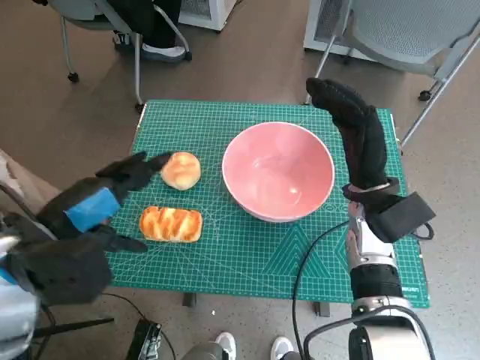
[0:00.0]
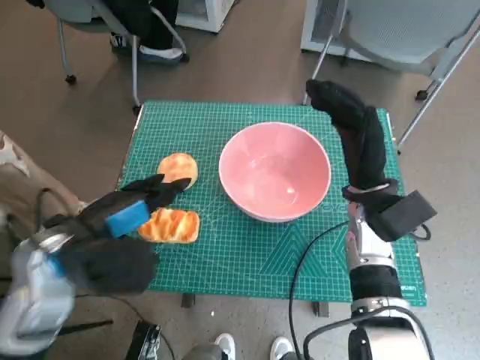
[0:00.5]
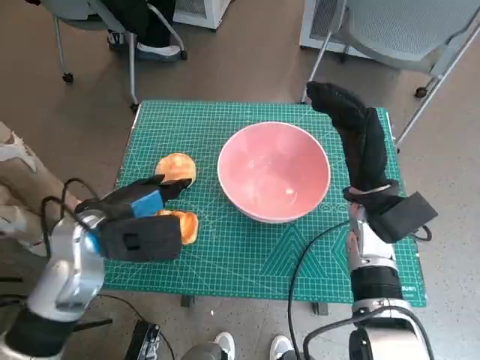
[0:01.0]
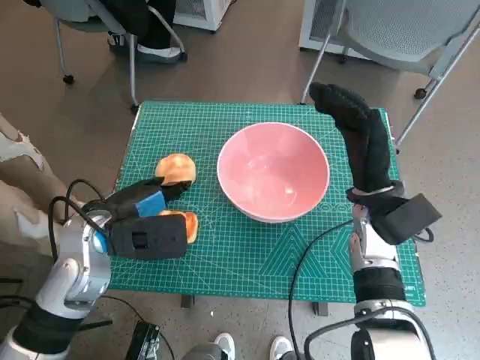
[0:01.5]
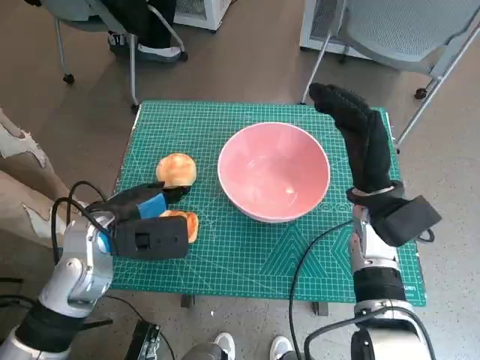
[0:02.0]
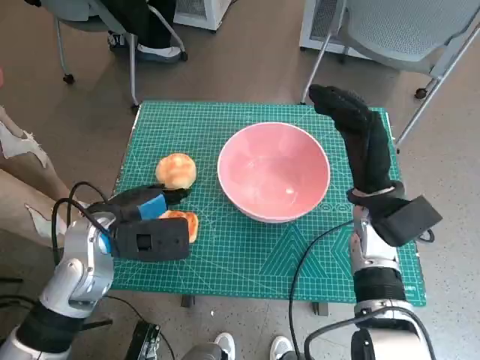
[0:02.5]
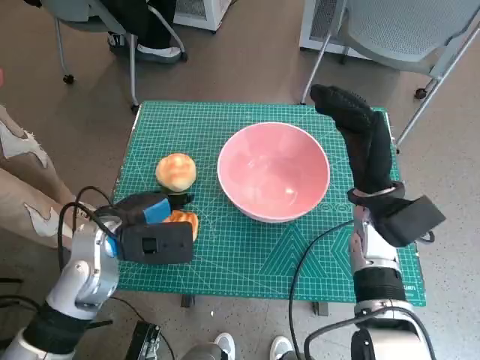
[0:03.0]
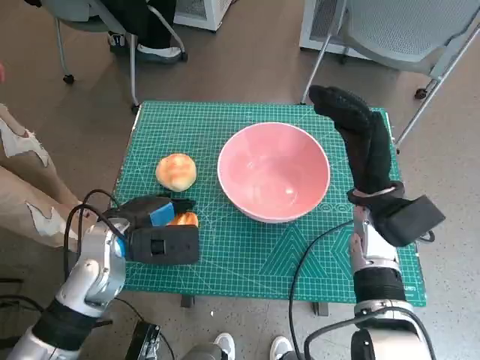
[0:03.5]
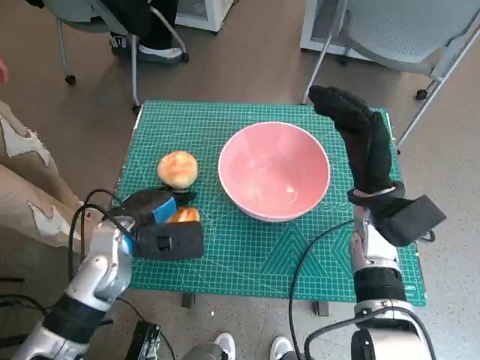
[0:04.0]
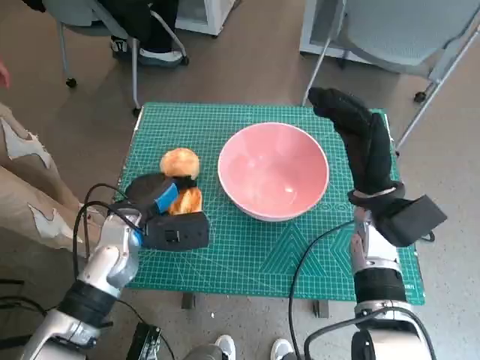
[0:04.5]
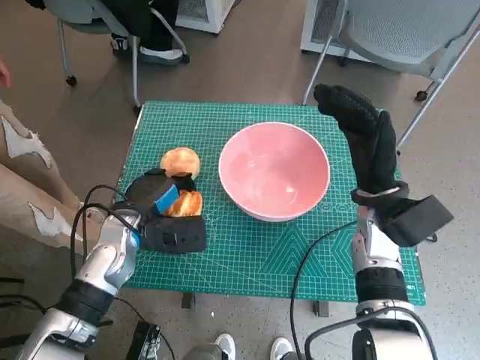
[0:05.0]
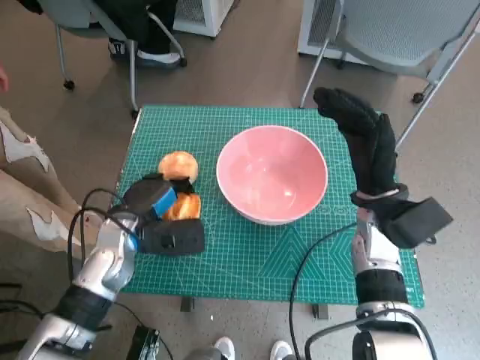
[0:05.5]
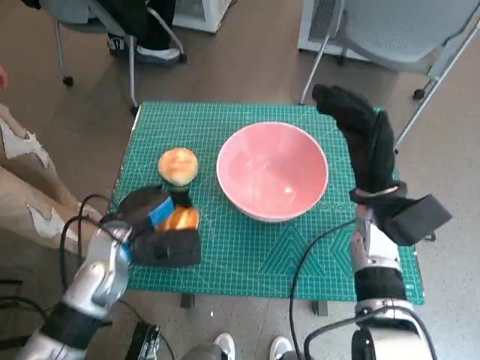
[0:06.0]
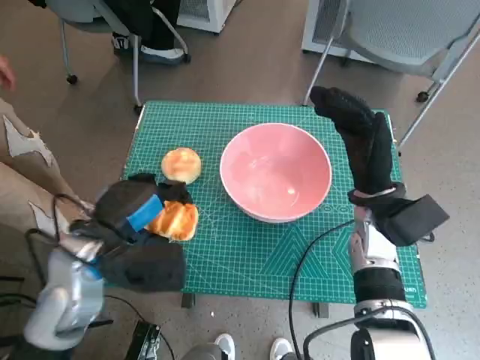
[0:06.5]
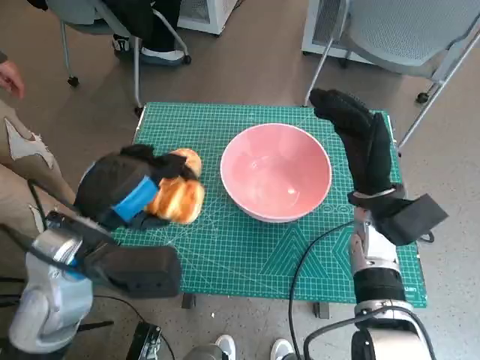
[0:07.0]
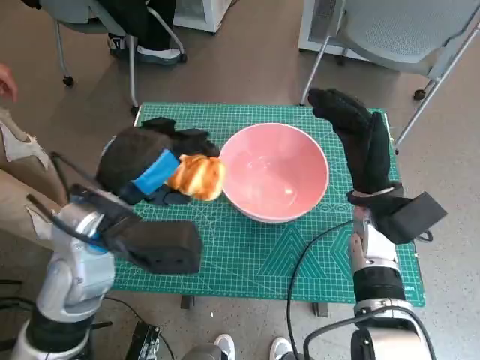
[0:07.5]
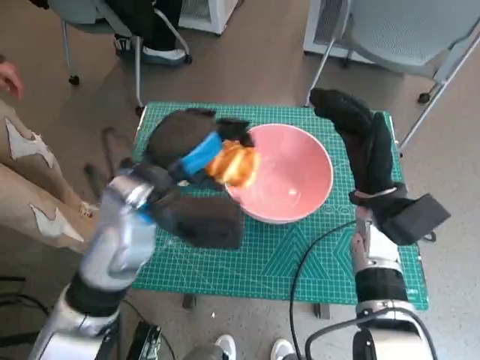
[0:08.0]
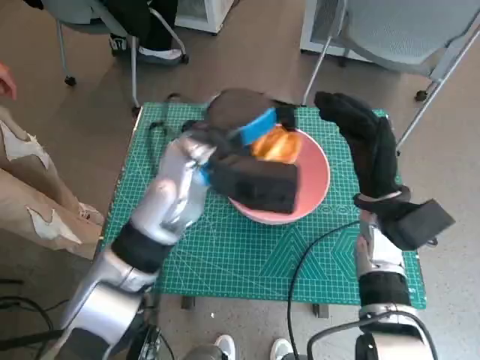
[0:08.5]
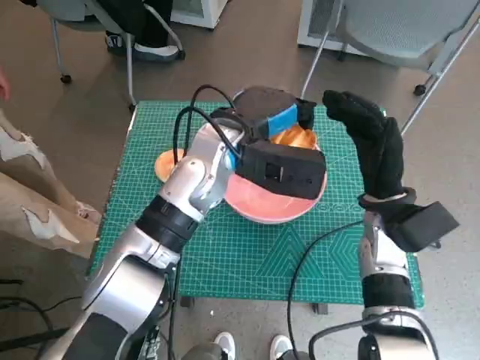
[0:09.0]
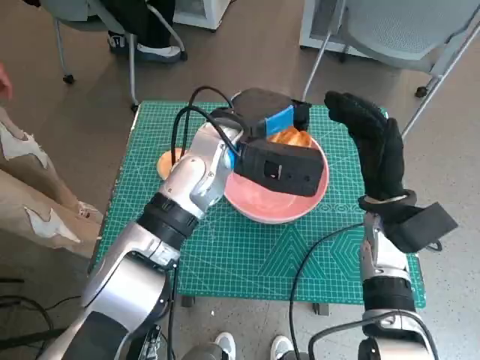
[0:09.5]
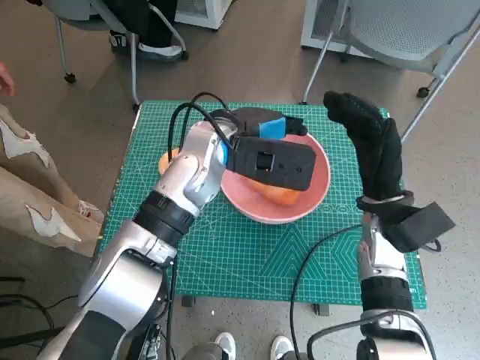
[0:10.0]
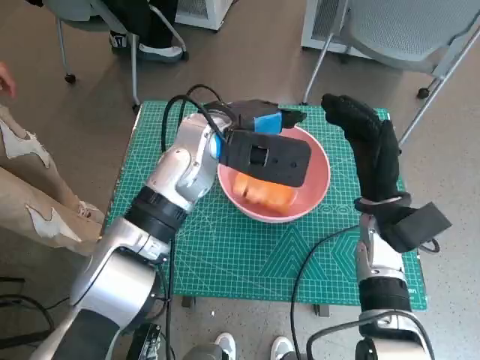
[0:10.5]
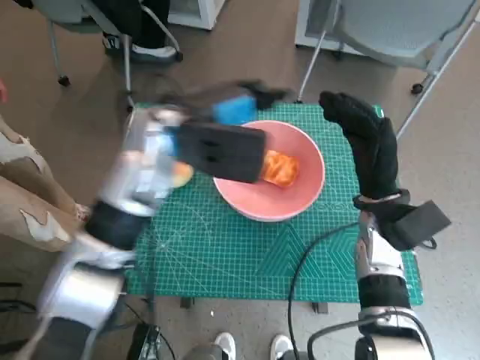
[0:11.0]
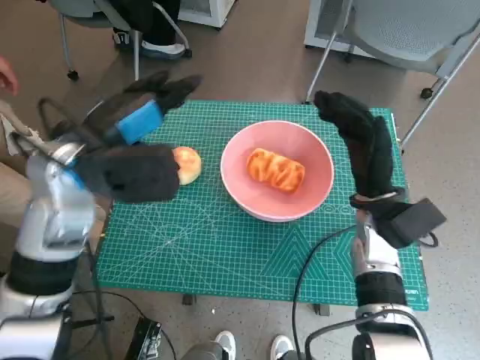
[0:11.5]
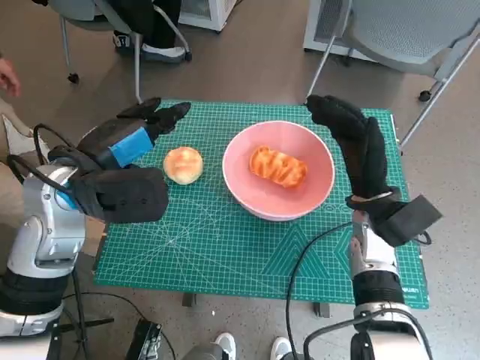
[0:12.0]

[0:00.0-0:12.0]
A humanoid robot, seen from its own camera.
Step, 0:00.0 to 0:04.0: Grasp the long bread with left hand.
Step, 0:04.5 to 0:10.0: Place the long bread in pink bowl with left hand.
0:00.0 to 0:02.0: The left hand goes about 10 cm downward and forward.
0:02.0 to 0:04.0: There are only small adjustments of the hands.
0:04.0 to 0:06.0: The hands make only small movements.
0:06.0 to 0:08.0: The left hand goes roughly 15 cm upward and to the right.
0:08.0 to 0:10.0: The left hand shifts about 10 cm forward and to the right.
0:10.0 to 0:12.0: The left hand travels to the left and backward by about 15 cm.

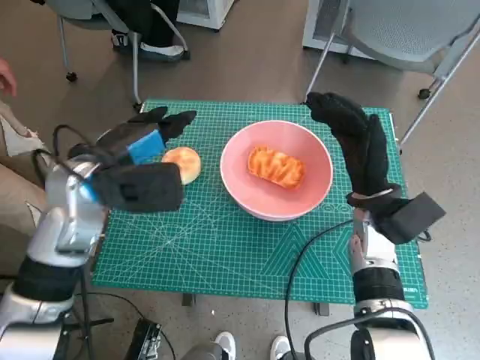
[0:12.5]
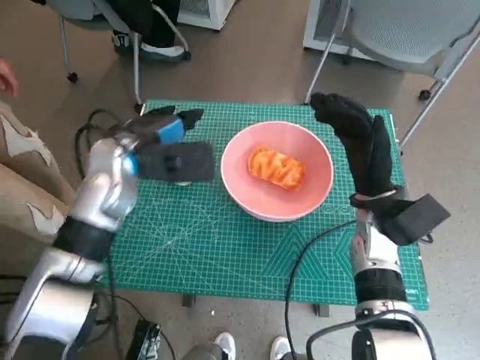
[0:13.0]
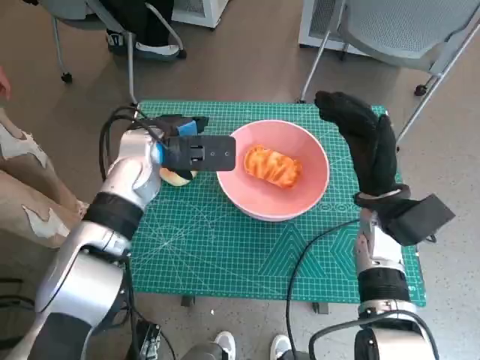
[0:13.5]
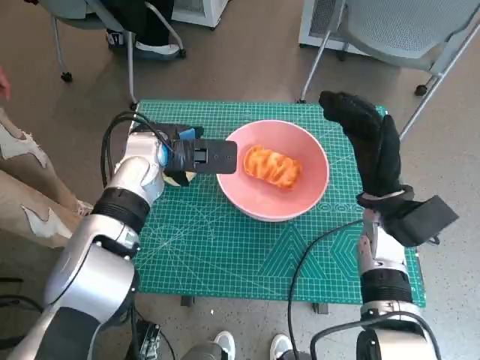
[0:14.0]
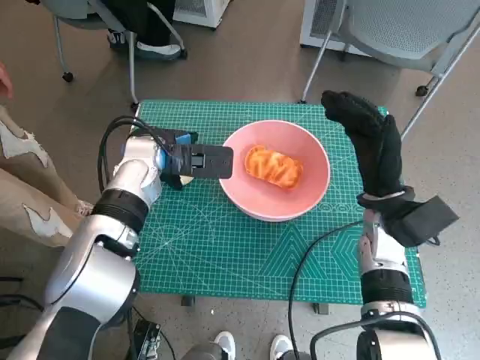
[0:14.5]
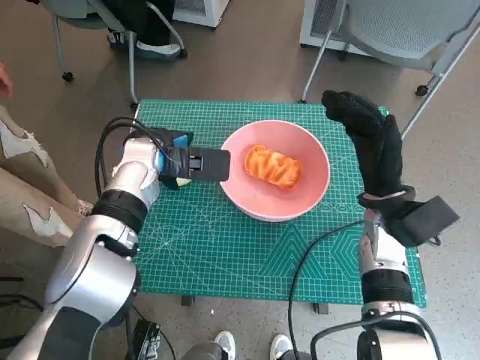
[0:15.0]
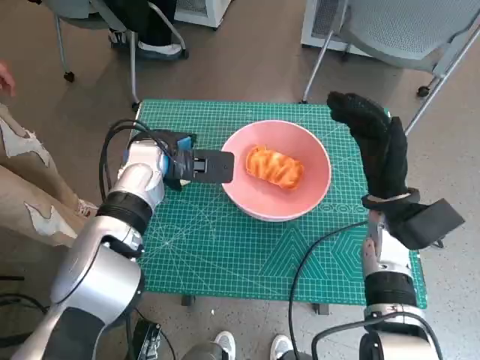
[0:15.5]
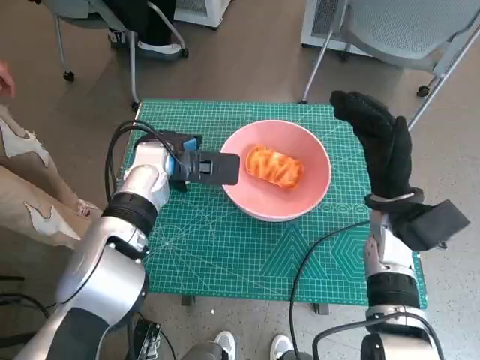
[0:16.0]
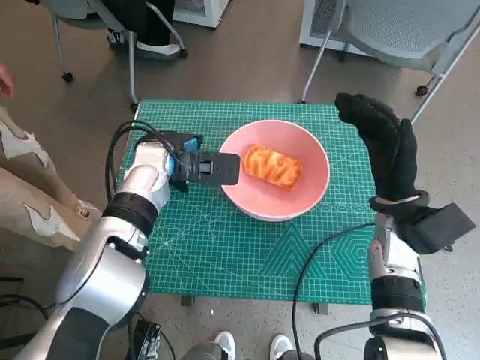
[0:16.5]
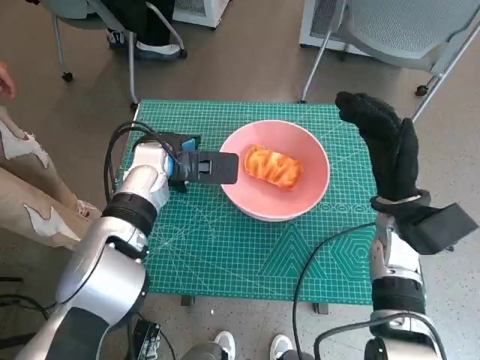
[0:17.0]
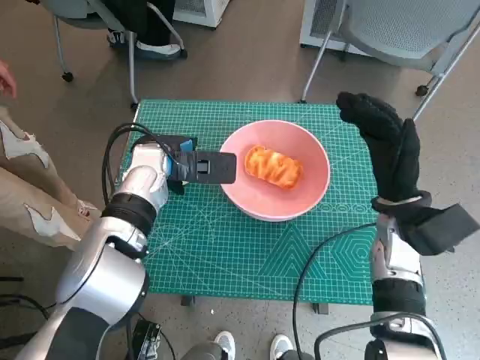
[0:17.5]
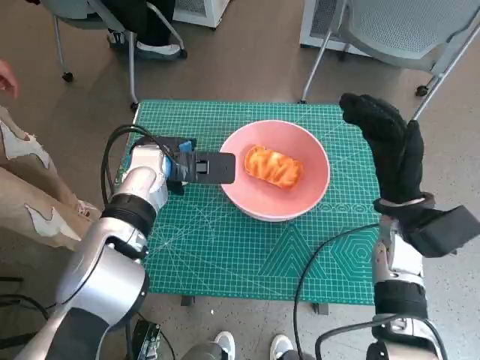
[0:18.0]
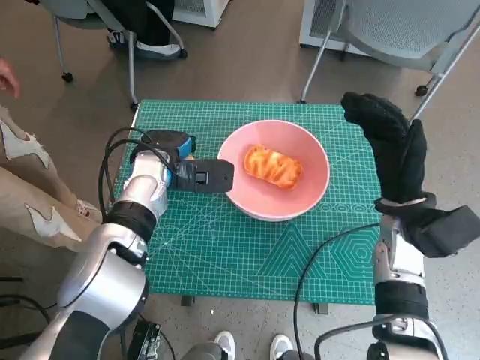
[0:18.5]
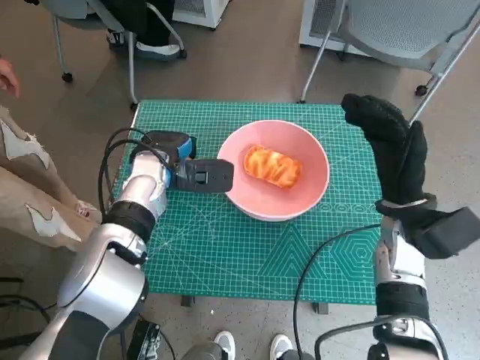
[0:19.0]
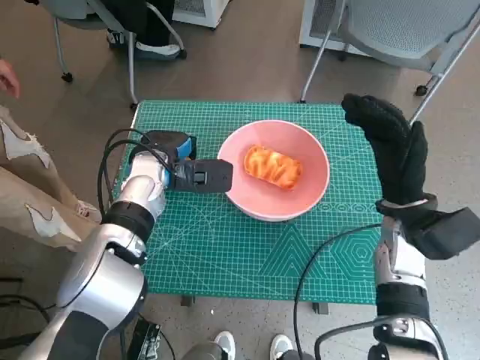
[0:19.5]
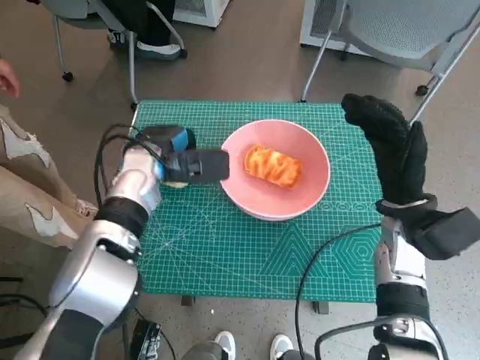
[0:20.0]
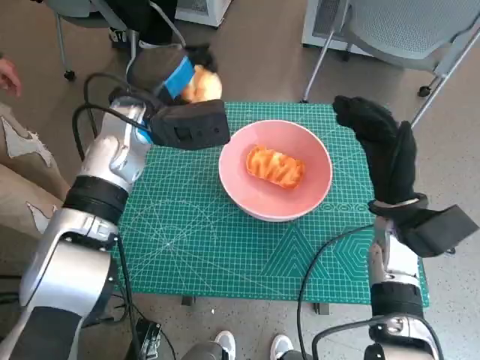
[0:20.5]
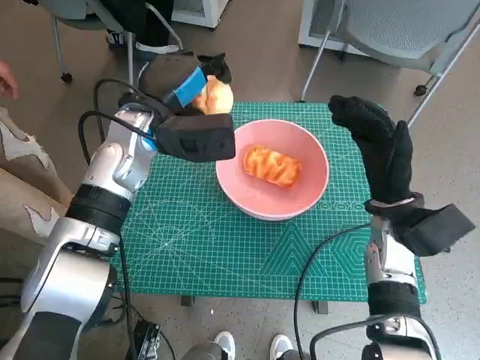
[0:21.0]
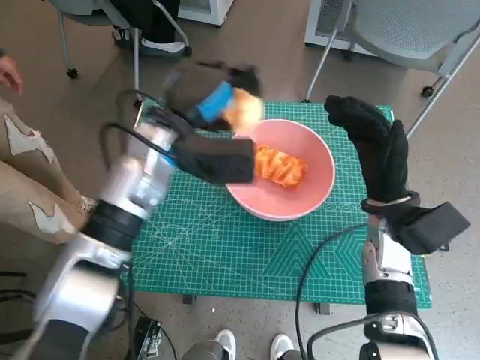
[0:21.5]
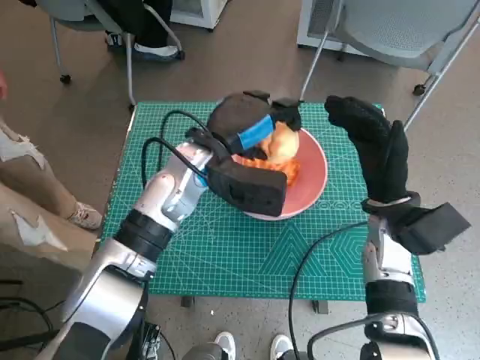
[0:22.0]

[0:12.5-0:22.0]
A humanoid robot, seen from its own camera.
Step, 0:12.5 to 0:19.0: Grasp the round bread with left hand.
0:12.5 to 0:14.5: The left hand travels forward by roughly 10 cm.
0:14.5 to 0:16.5: There are only small adjustments of the hands.
0:16.5 to 0:18.0: Both hands stay about where they are.
0:18.0 to 0:20.0: The hands stay close to where they were, moving slightly.
0:20.0 to 0:22.0: The left hand heads to the right, covering about 10 cm.

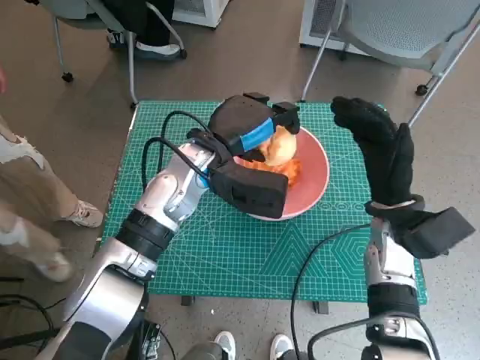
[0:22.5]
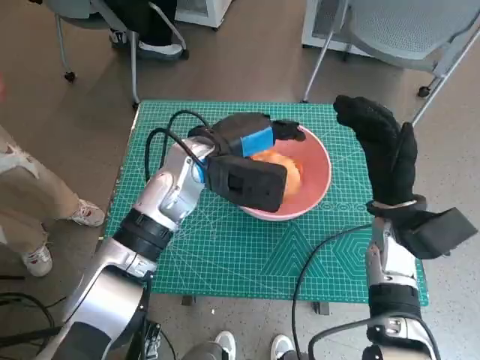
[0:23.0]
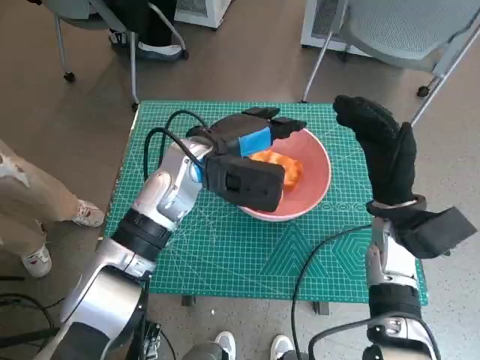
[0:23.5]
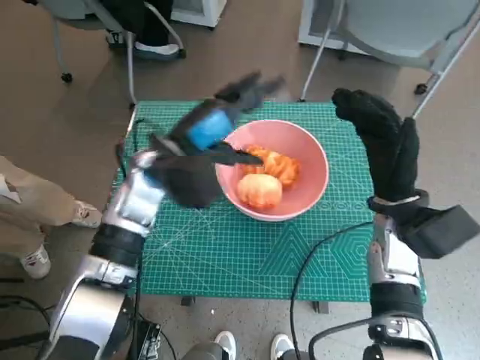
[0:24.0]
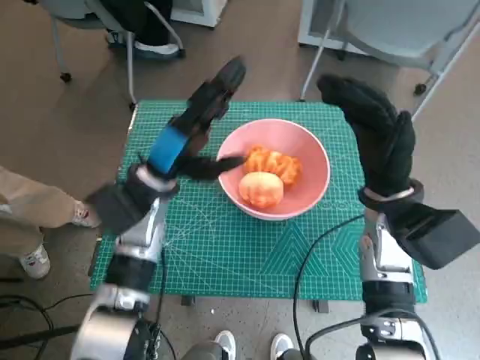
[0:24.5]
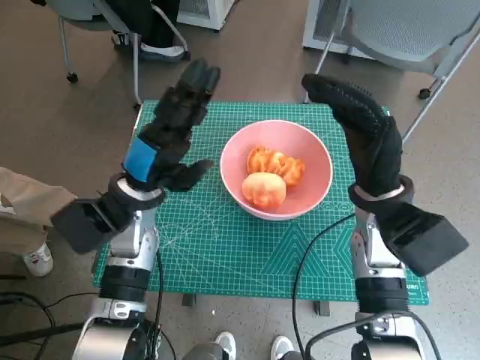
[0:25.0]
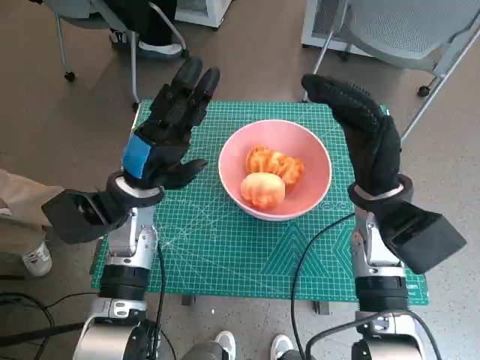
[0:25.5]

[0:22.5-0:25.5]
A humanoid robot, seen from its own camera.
0:22.5 to 0:24.0: The left hand shifts by some 5 cm.
0:24.0 to 0:25.5: The left hand moves roughly 5 cm.
